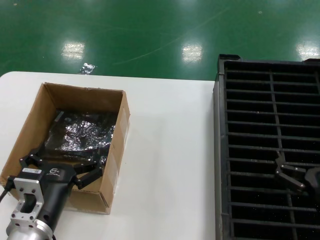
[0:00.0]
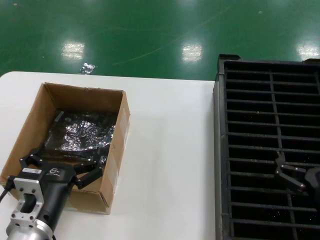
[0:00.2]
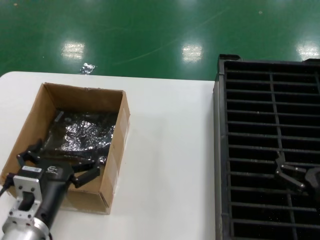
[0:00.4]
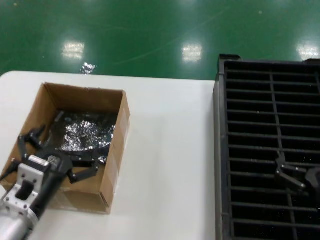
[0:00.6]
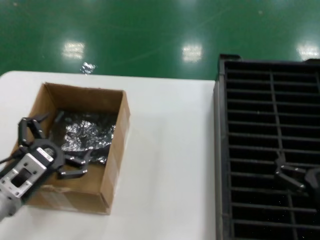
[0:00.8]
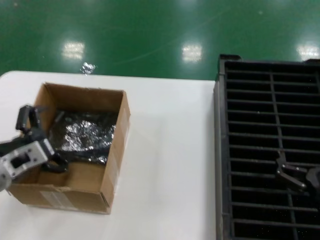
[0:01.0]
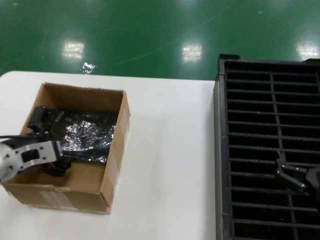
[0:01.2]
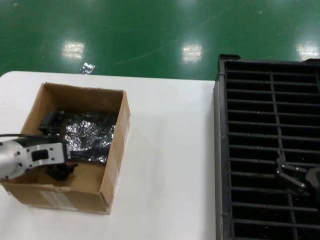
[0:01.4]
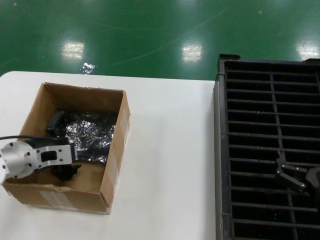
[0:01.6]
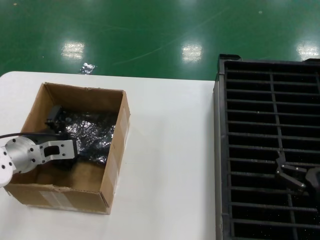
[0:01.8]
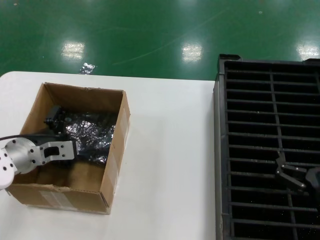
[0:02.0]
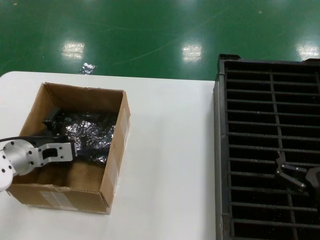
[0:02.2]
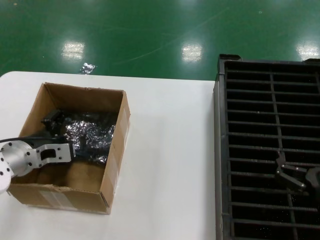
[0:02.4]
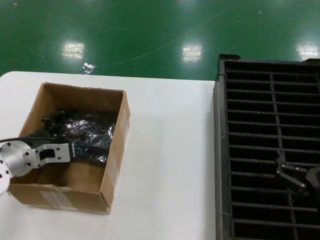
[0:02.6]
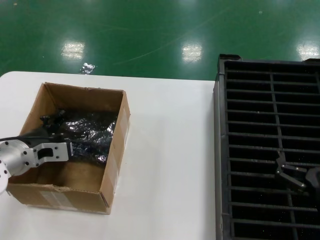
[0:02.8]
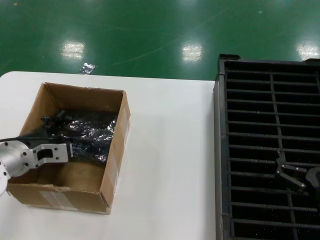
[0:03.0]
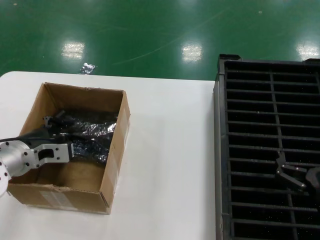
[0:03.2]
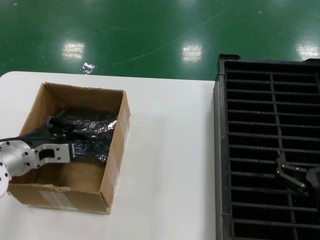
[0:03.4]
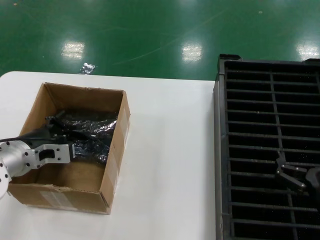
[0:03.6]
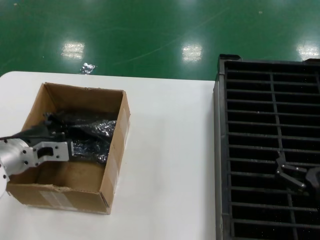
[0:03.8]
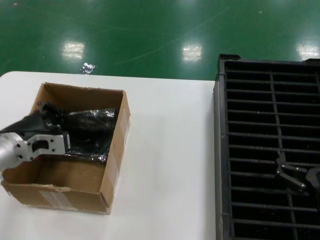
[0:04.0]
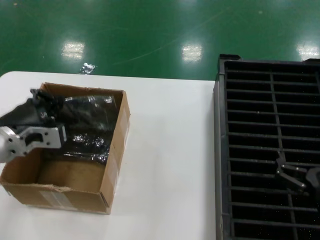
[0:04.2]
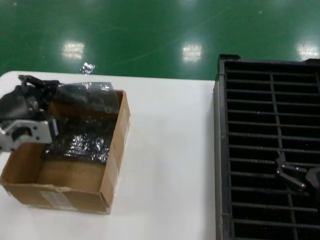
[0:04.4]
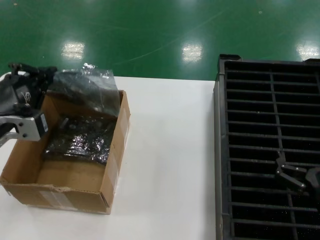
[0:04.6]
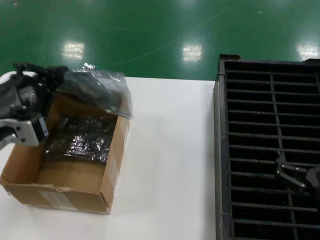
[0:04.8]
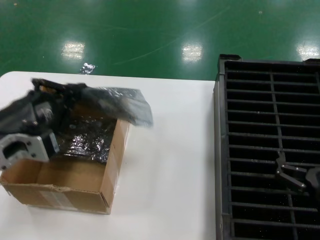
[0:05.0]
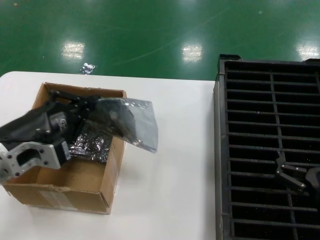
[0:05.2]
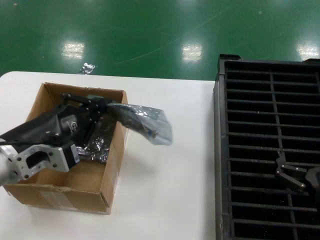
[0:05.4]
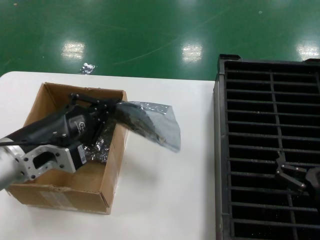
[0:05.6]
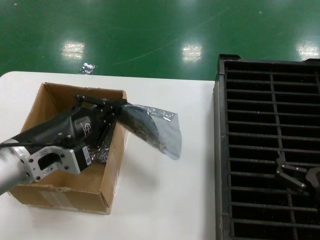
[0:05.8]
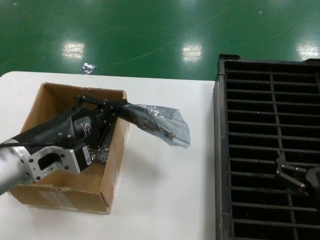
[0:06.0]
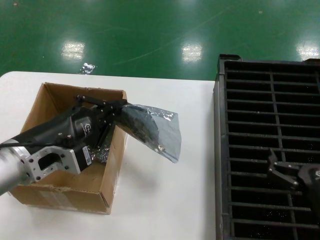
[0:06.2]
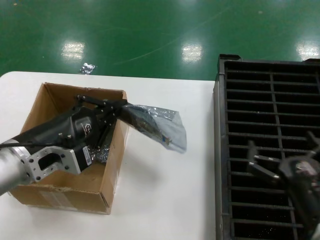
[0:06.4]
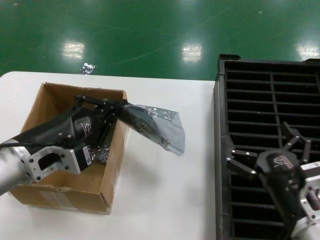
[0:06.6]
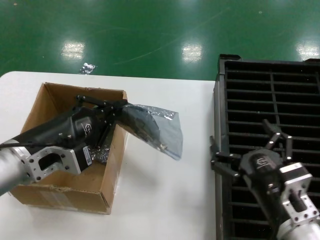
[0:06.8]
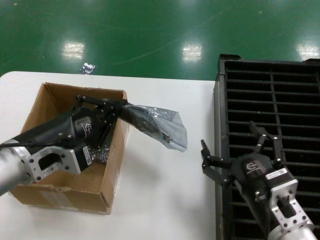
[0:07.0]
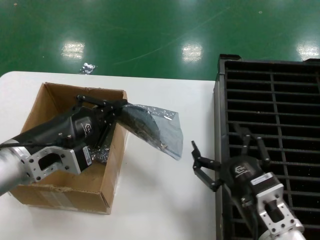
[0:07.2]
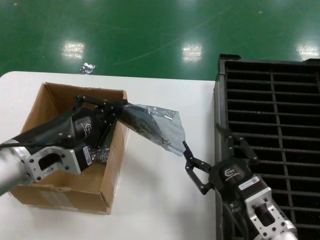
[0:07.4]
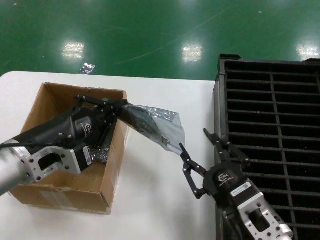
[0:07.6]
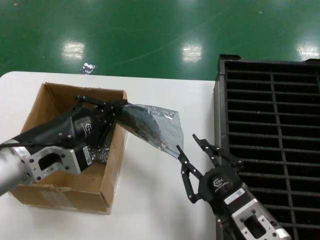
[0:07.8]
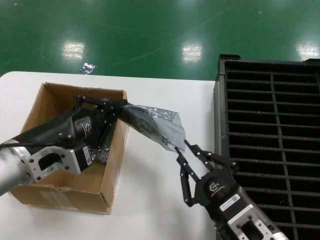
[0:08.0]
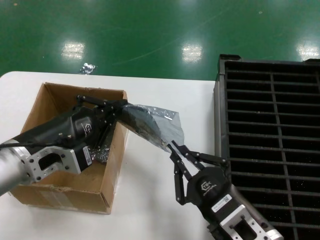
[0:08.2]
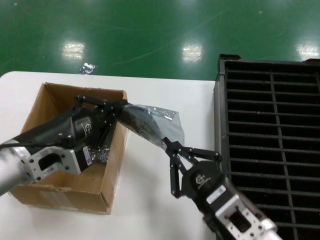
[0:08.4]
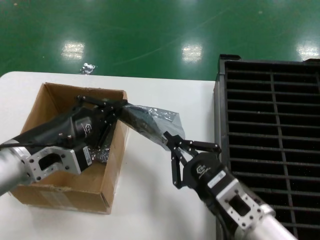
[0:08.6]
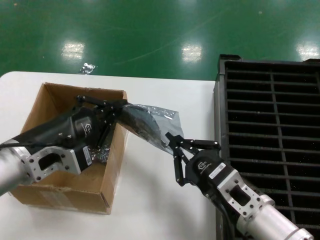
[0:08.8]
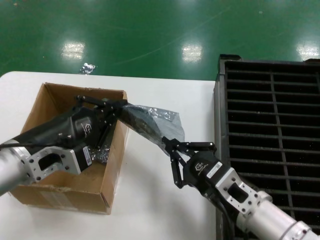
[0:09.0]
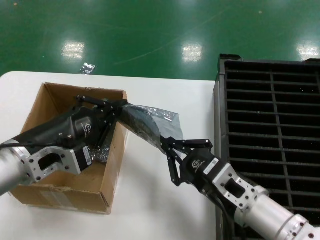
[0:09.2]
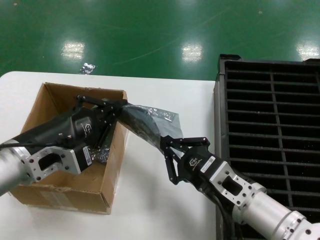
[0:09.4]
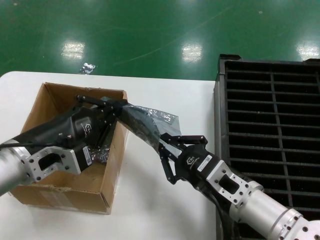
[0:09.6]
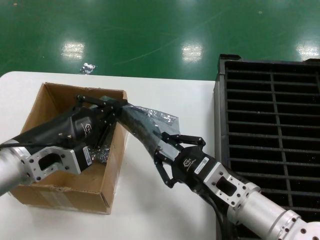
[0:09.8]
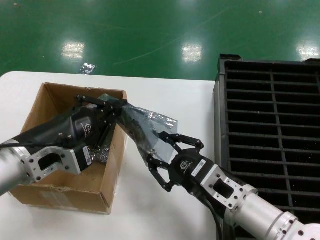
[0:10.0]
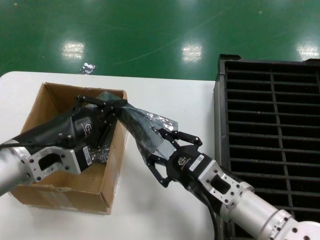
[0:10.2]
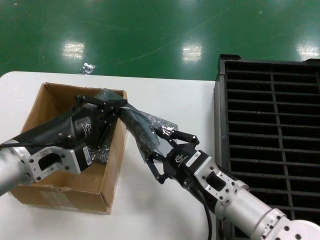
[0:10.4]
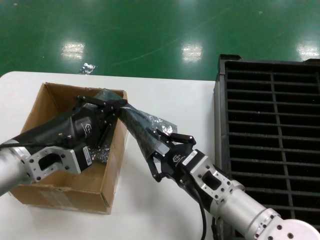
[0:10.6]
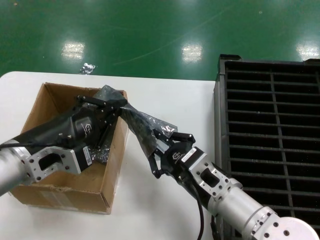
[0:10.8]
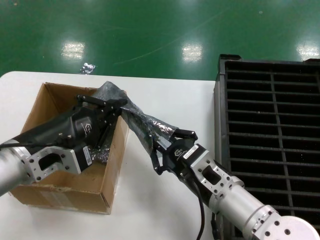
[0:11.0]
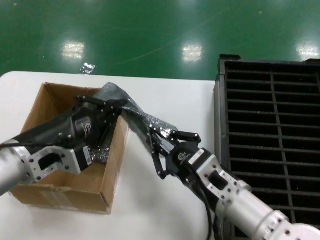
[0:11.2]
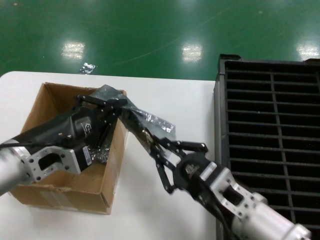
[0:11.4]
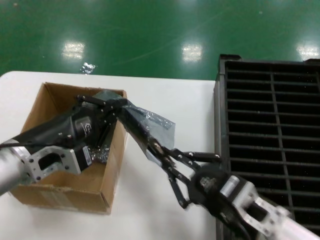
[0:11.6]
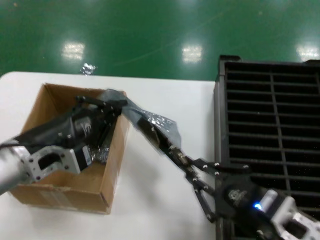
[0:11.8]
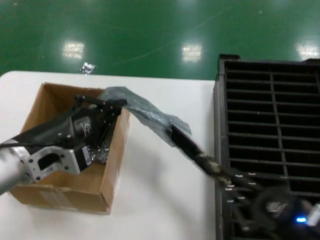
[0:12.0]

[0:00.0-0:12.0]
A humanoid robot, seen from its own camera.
Task of the whole recording: take out graphics card from box remove packaging put into black container.
Step, 0:00.0 to 0:03.6: Grasp the bag.
Step, 0:03.8 to 0:06.0: Lift the bag.
0:00.0 to 0:01.6: The left hand goes roughly 20 cm forward, to the left and upward.
0:01.6 to 0:03.0: The hands move only a little.
0:03.0 to 0:04.4: The left hand shifts approximately 10 cm upward and backward.
0:04.4 to 0:06.0: The left hand moves some 5 cm.
0:06.0 to 0:07.6: The right hand travels to the left by approximately 15 cm.
0:07.6 to 0:09.0: The right hand travels forward by some 5 cm.
0:09.0 to 0:10.4: The hands make only small movements.
0:10.4 to 0:12.0: The right hand heads to the right and backward, covering approximately 20 cm.

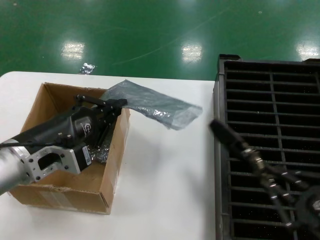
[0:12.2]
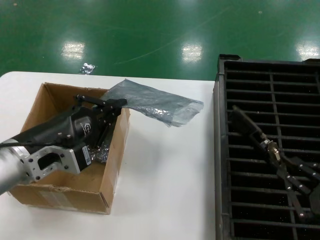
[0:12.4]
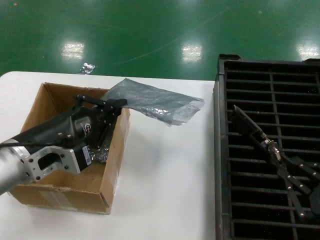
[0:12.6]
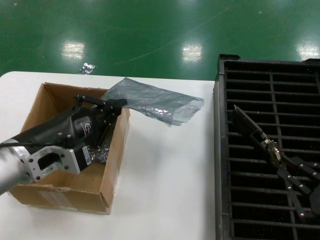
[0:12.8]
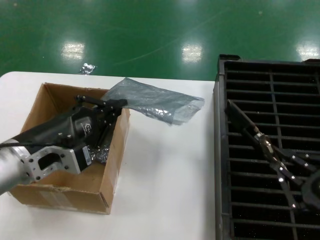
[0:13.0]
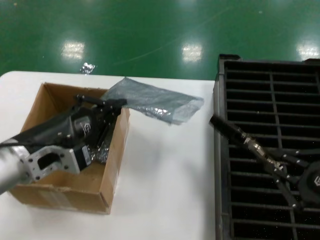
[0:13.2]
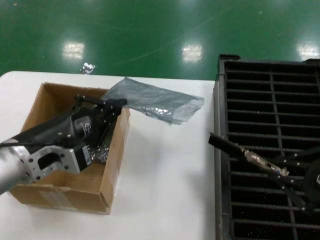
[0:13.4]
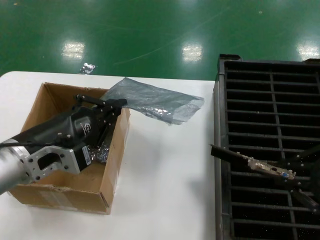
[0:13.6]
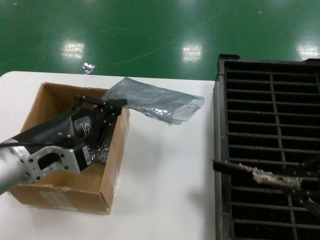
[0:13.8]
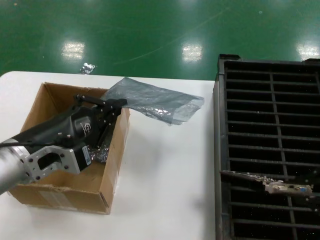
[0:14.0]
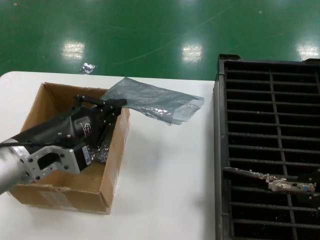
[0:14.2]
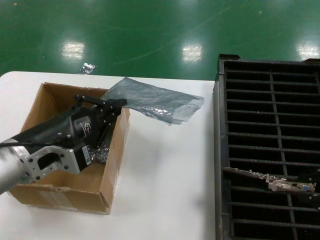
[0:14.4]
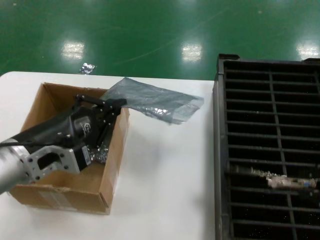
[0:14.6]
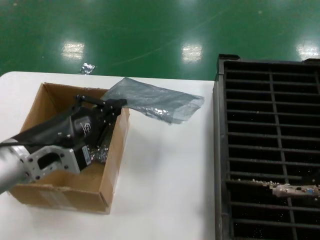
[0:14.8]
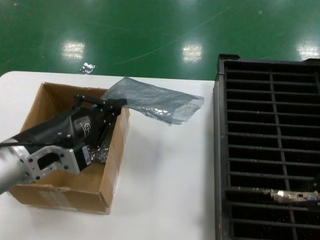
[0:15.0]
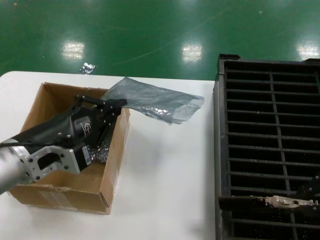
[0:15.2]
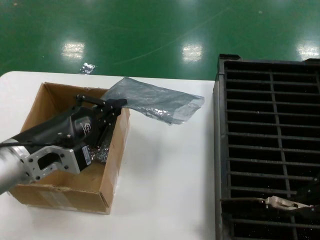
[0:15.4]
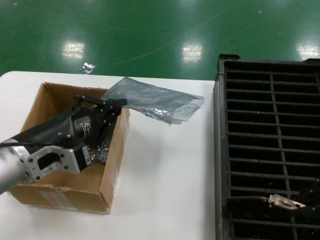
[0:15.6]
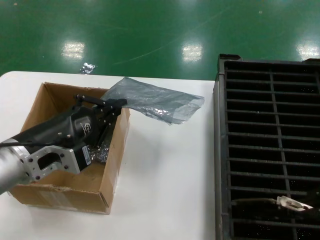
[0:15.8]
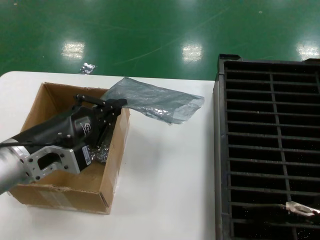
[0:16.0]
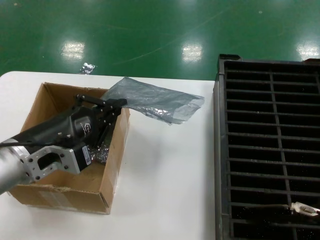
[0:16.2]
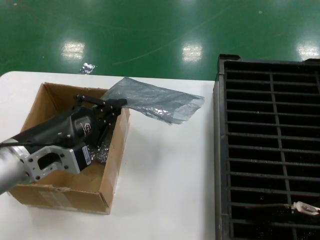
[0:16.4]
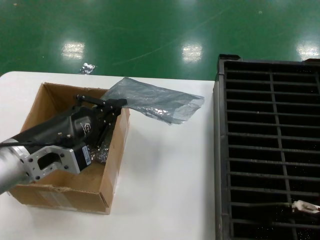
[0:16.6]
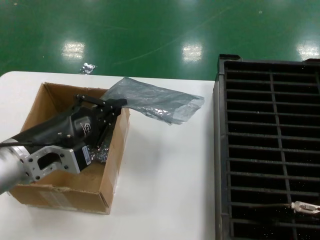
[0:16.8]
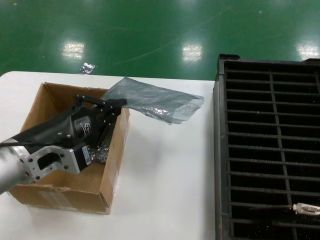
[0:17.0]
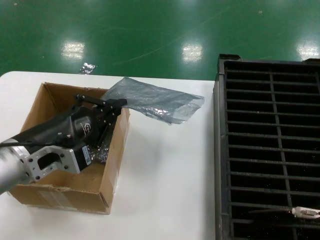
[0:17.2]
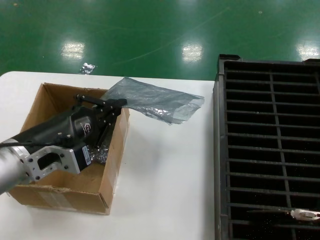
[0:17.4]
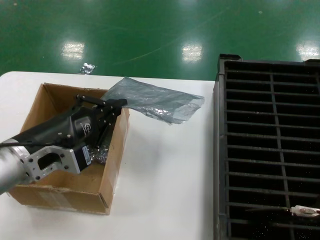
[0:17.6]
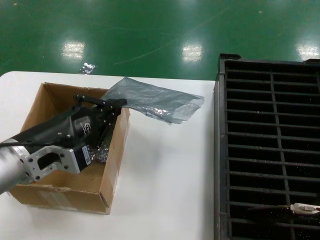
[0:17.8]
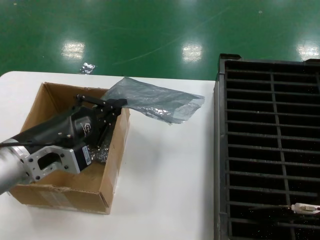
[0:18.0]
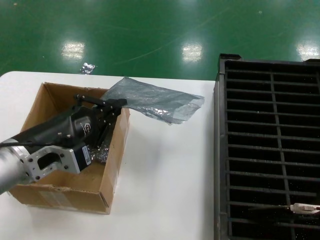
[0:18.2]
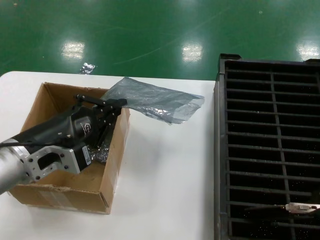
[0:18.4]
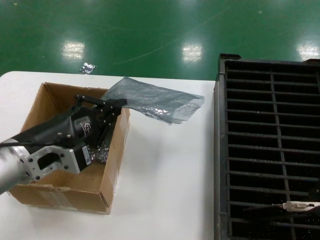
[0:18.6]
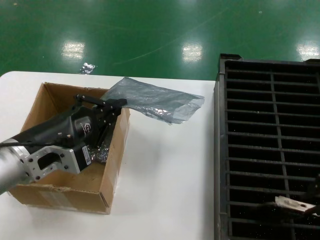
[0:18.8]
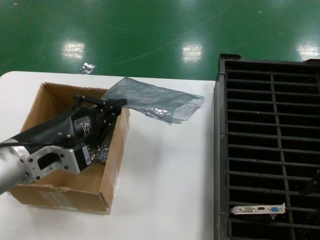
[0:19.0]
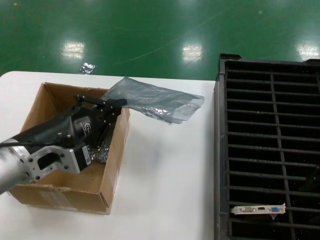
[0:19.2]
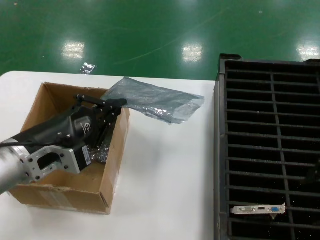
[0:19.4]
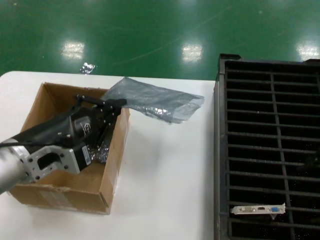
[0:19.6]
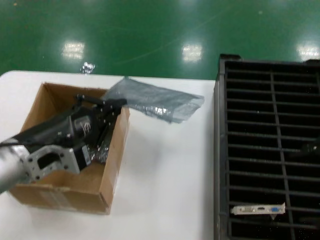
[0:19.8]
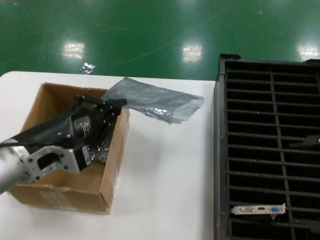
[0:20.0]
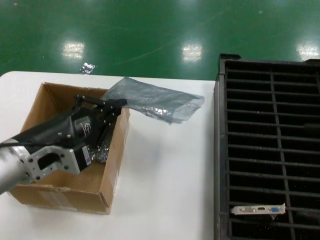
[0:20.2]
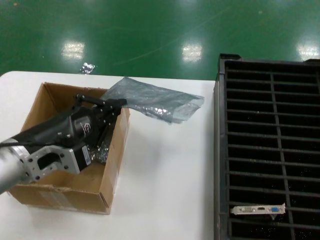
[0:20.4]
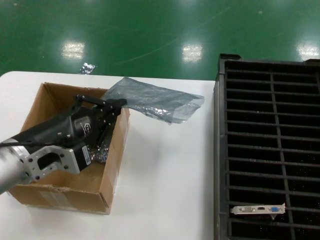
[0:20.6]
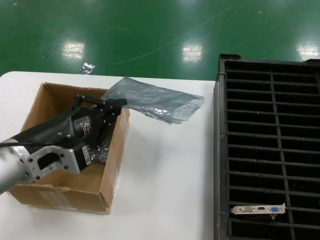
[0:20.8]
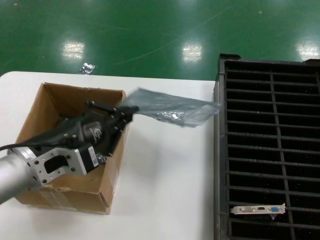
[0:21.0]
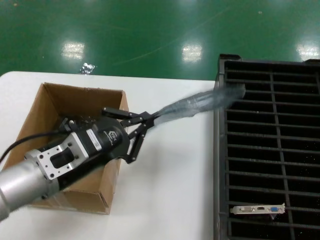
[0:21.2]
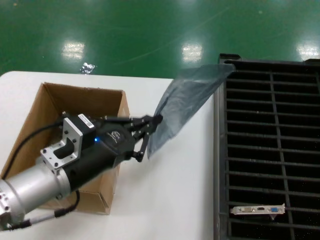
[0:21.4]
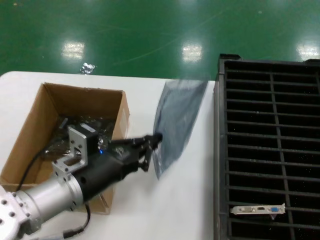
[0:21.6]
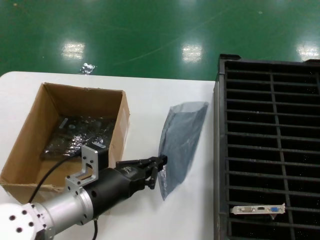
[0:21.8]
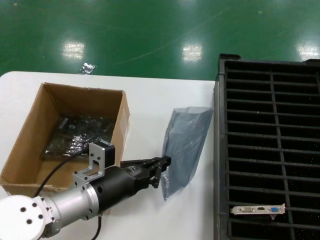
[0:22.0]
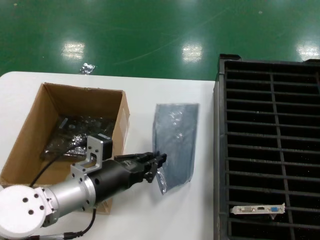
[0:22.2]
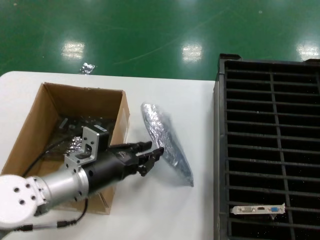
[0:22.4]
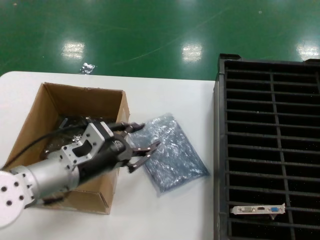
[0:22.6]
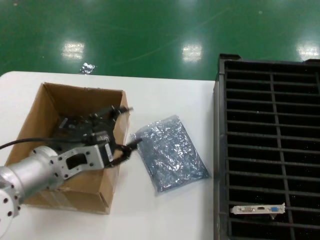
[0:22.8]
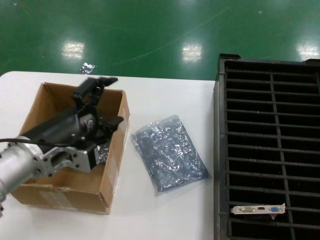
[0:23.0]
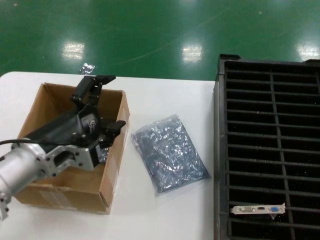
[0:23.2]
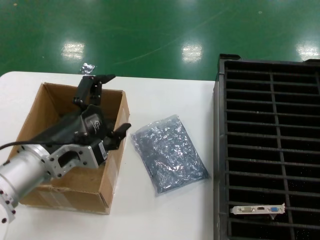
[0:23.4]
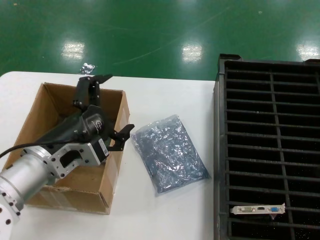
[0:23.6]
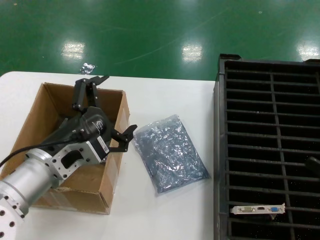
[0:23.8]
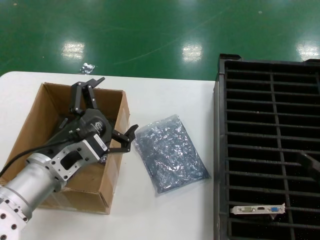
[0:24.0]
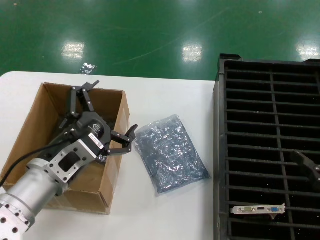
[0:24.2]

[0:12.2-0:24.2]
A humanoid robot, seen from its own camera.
Task of the whole recording: take out graphics card from box remove packaging put into black container.
Step, 0:12.2 to 0:19.0: Place the hard disk in the hard disk enclosure.
Step, 0:19.2 to 0:22.4: Place the down the bag.
0:12.2 to 0:13.8: The right hand moves upward, some 15 cm.
0:13.8 to 0:15.2: The right hand travels upward by approximately 5 cm.
0:15.2 to 0:16.6: The hands make only small movements.
0:19.8 to 0:21.2: The right hand travels to the right, backward and downward by approximately 15 cm.
0:21.2 to 0:22.6: The left hand travels forward by some 5 cm.
0:22.6 to 0:24.2: The right hand travels downward and to the left by about 15 cm.
